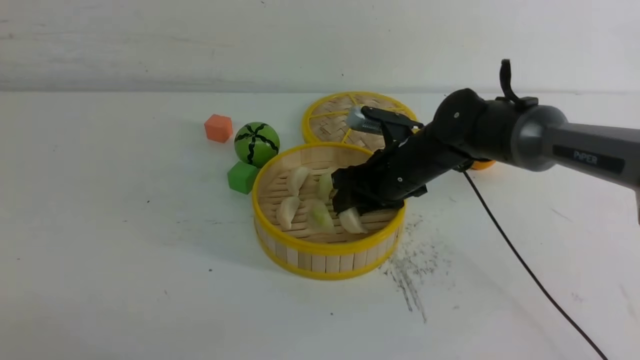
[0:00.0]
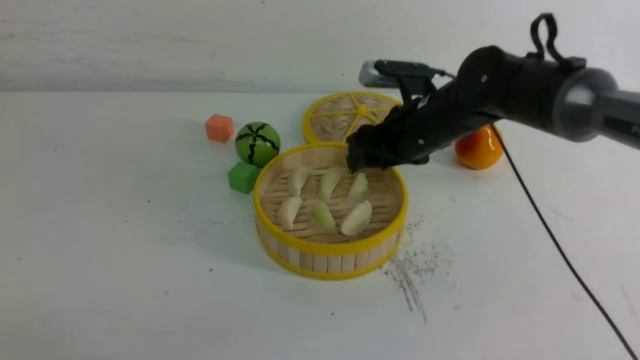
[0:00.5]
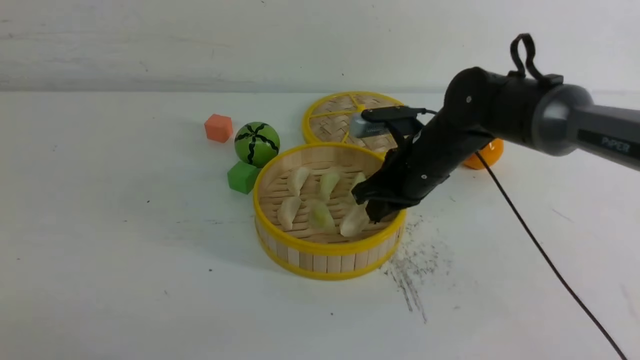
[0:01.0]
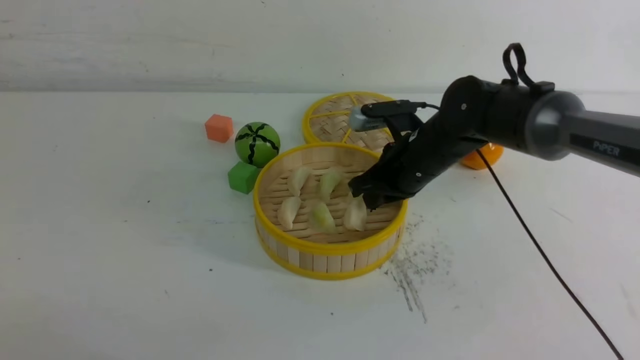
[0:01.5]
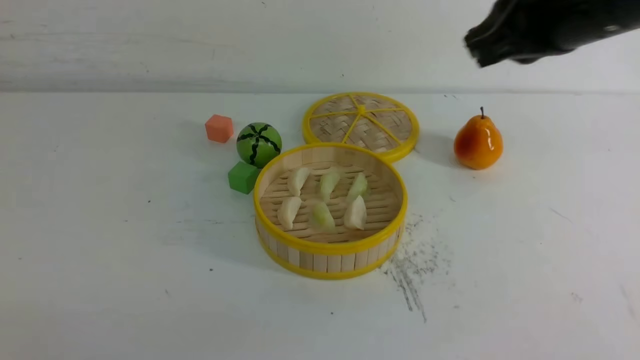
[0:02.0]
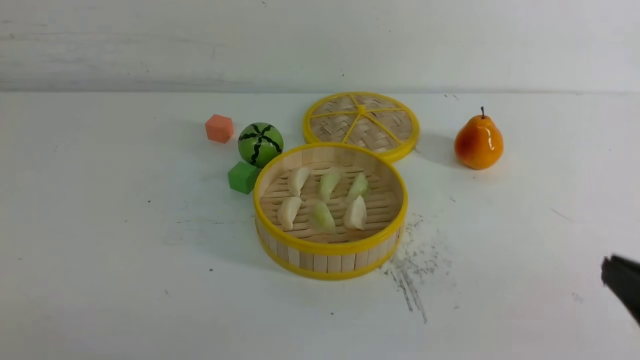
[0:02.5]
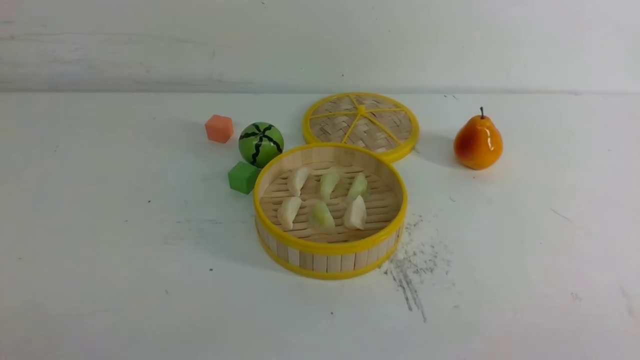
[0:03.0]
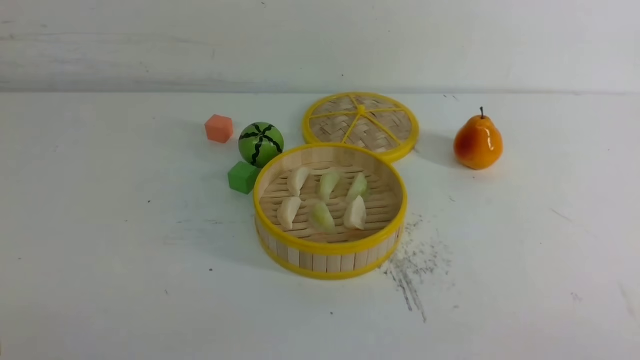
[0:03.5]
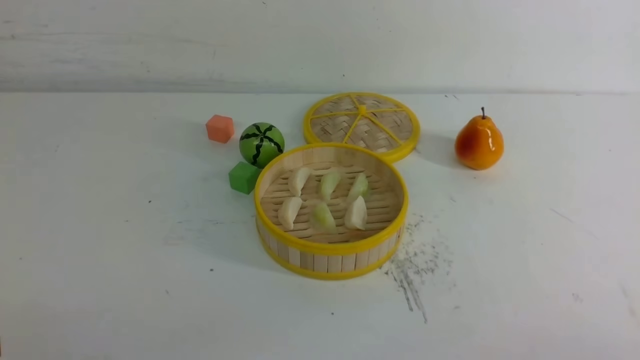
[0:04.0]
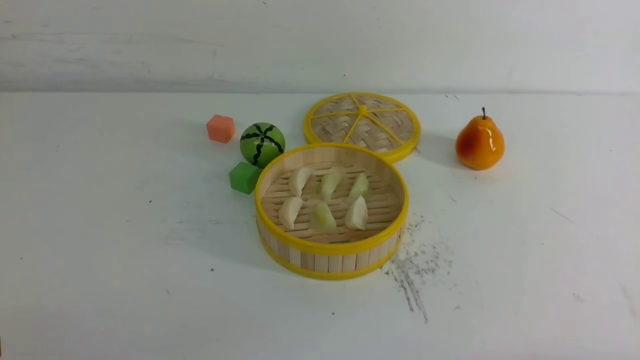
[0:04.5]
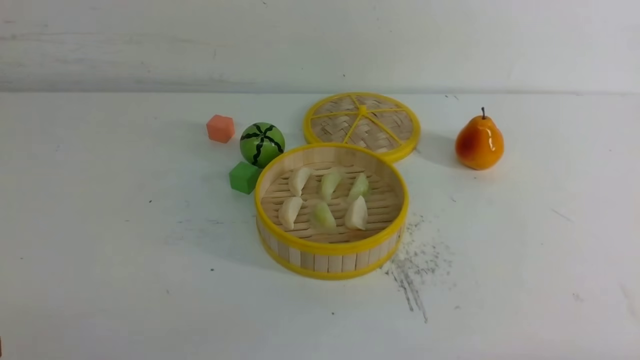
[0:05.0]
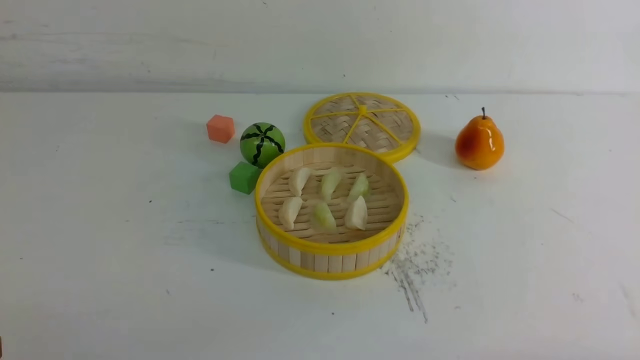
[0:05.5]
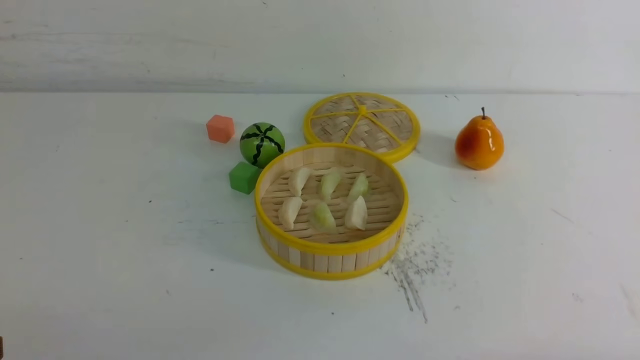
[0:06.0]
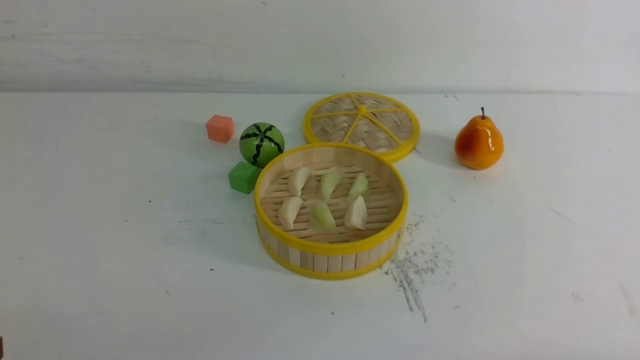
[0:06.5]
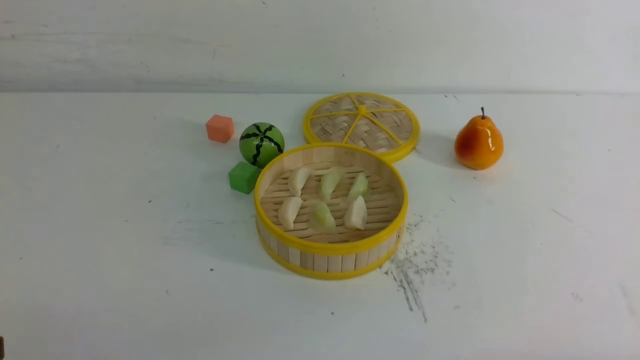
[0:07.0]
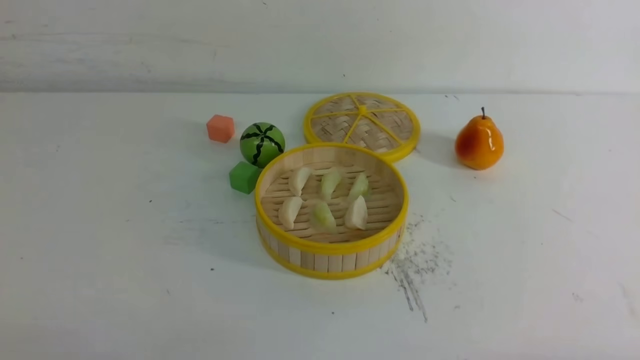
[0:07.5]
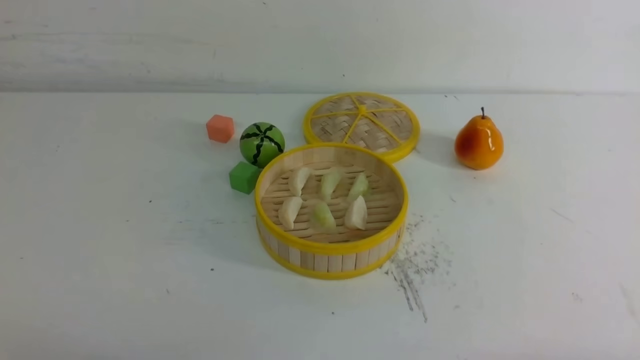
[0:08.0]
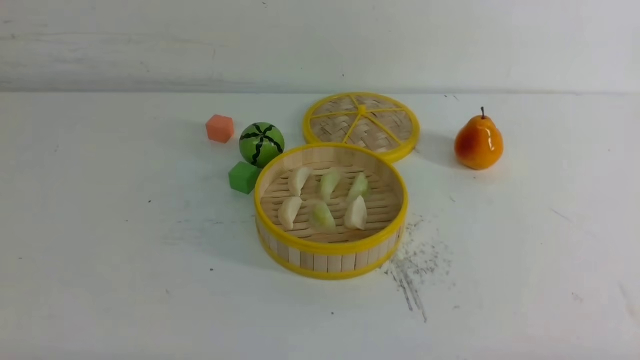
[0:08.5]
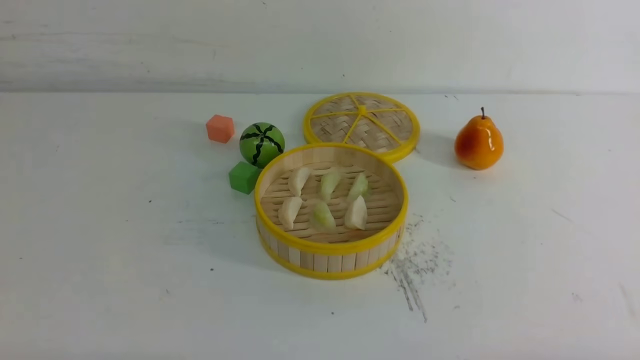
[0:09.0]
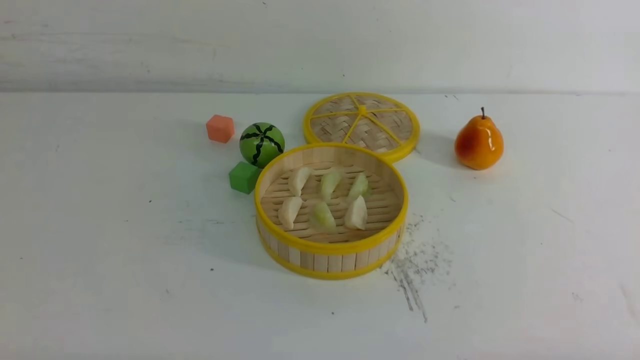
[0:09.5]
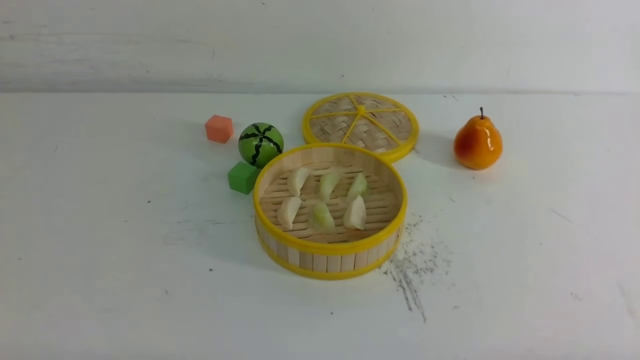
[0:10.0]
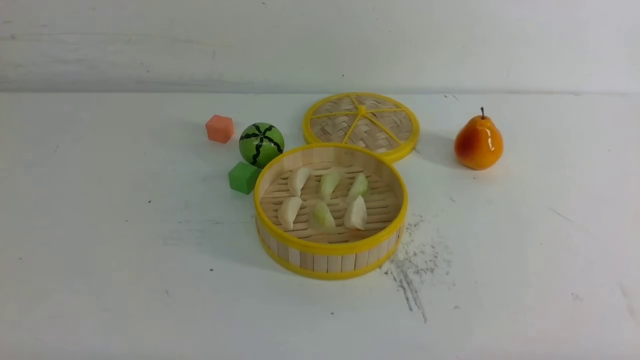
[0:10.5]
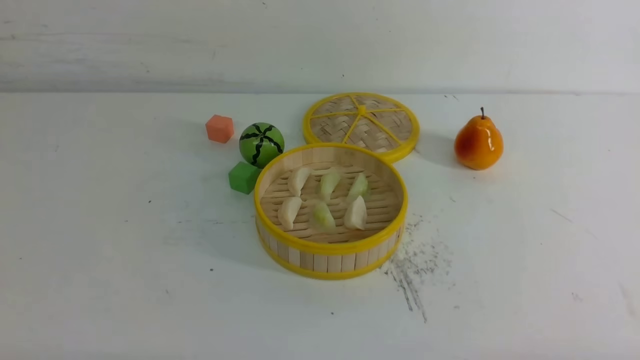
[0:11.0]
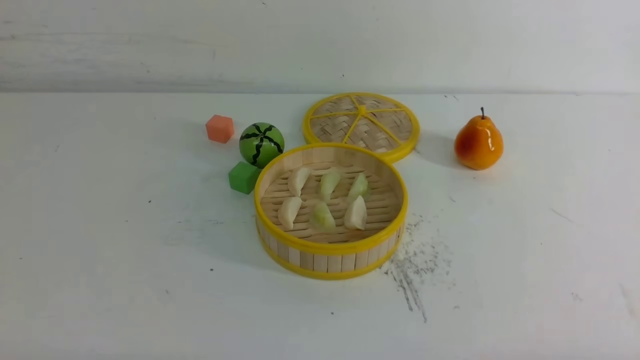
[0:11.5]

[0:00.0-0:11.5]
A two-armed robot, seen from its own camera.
Task of the whole recording: put the dumplings into the steamer on the white table.
0:00.0 to 0:02.0: The right gripper heads upward and backward, covering some 30 cm, and closes.
0:02.0 to 0:04.0: The right gripper is displaced backward, downward and to the right by some 30 cm.
0:09.5 to 0:11.5: The two grippers keep their place.

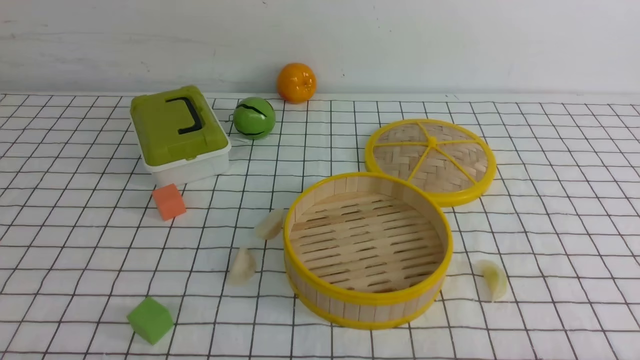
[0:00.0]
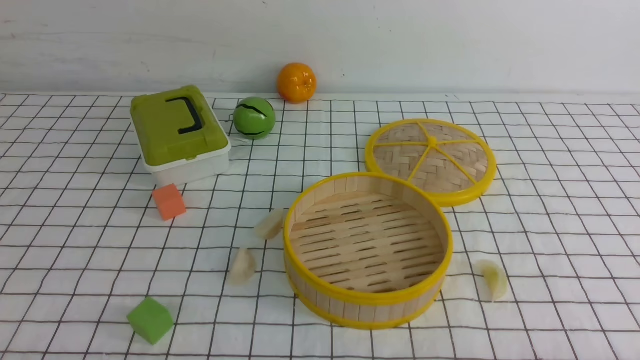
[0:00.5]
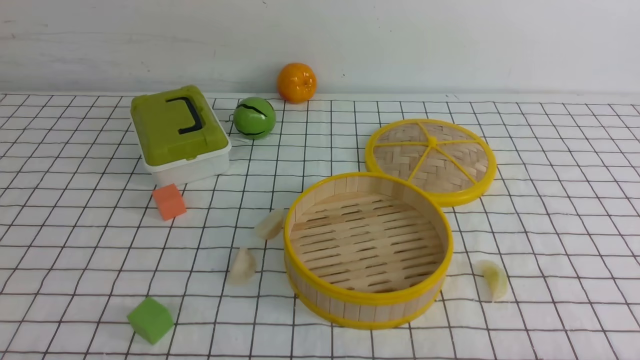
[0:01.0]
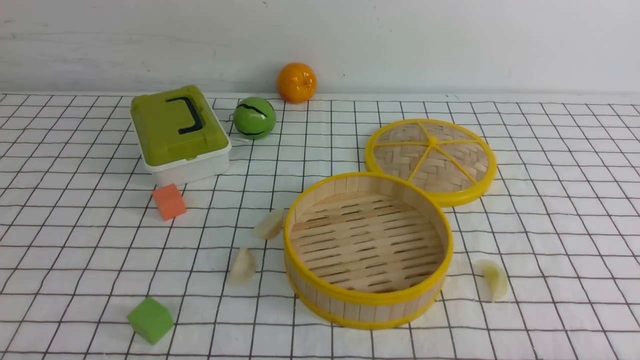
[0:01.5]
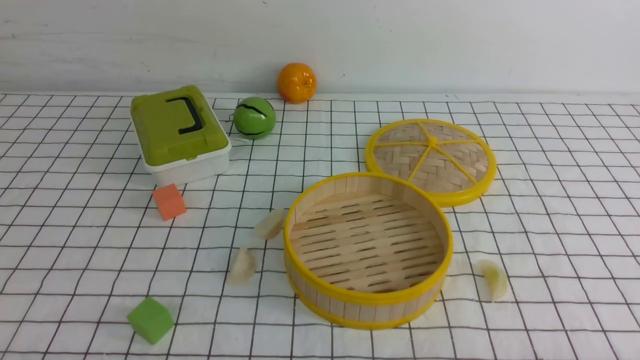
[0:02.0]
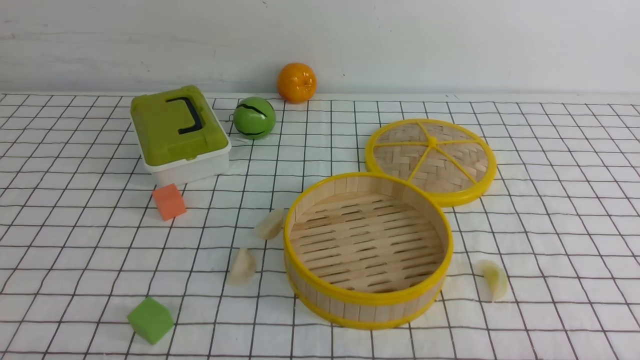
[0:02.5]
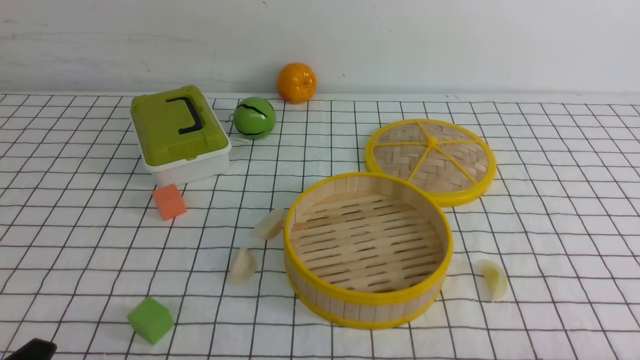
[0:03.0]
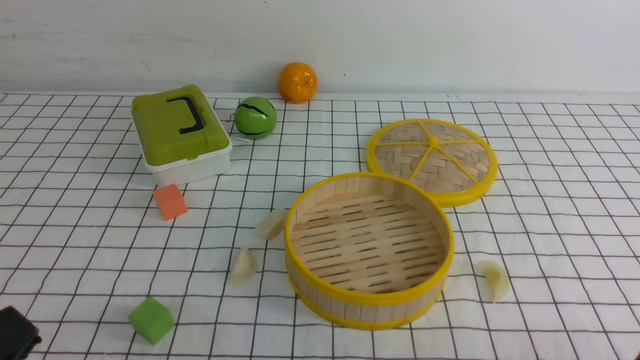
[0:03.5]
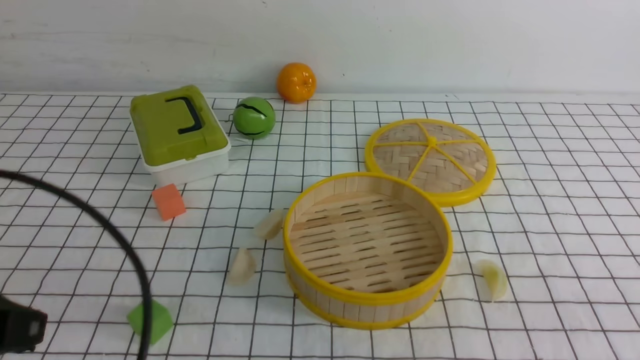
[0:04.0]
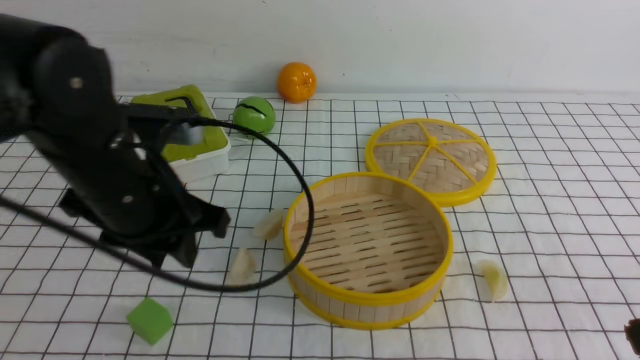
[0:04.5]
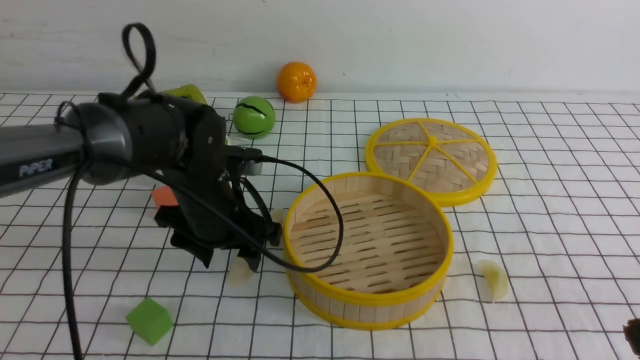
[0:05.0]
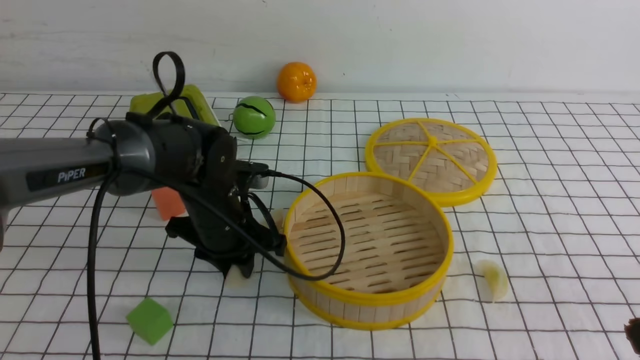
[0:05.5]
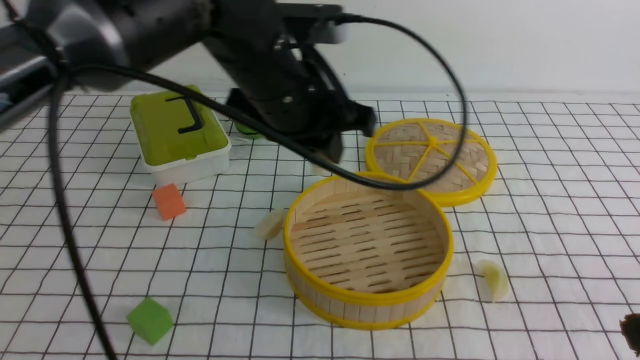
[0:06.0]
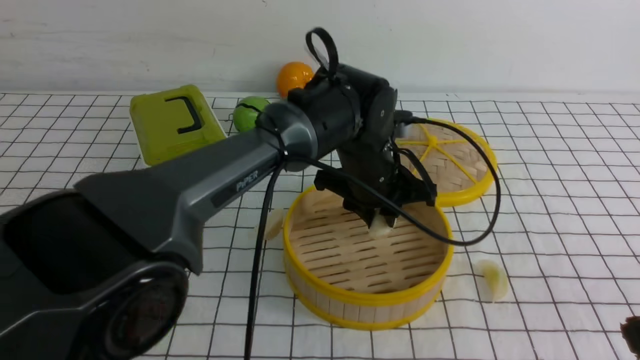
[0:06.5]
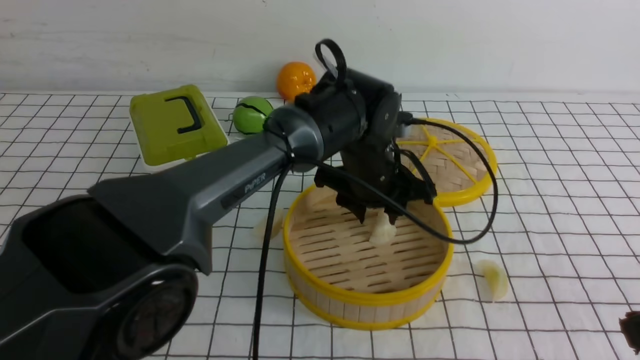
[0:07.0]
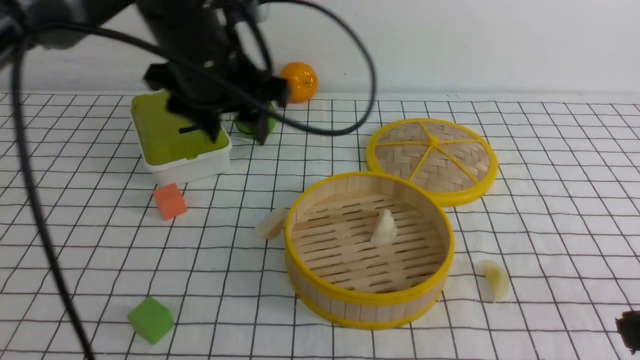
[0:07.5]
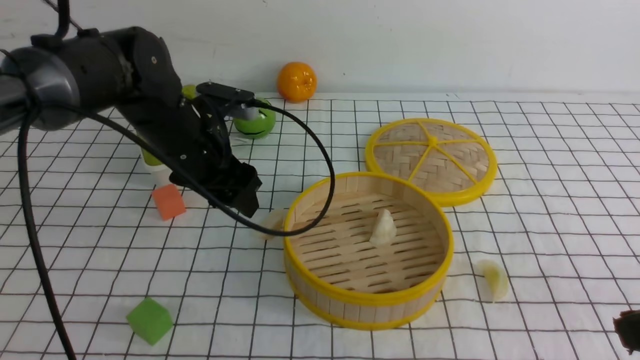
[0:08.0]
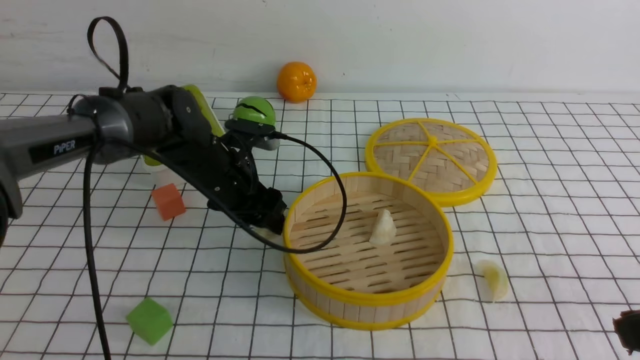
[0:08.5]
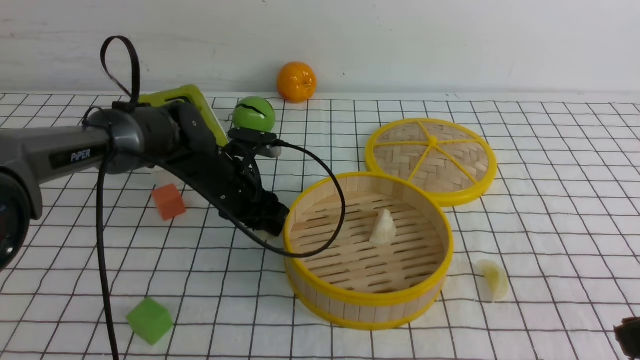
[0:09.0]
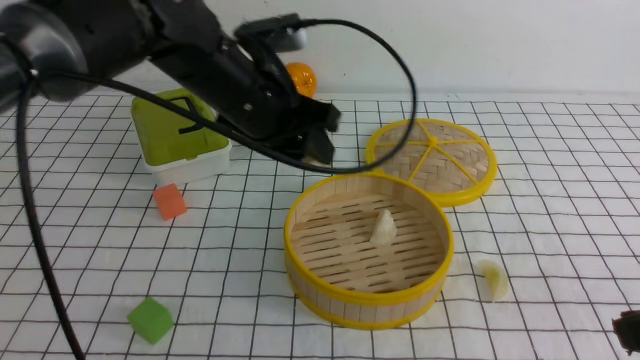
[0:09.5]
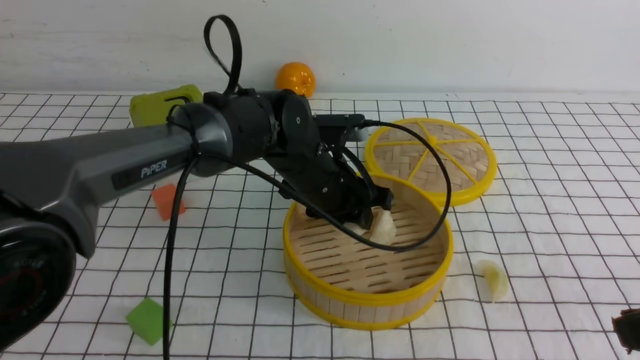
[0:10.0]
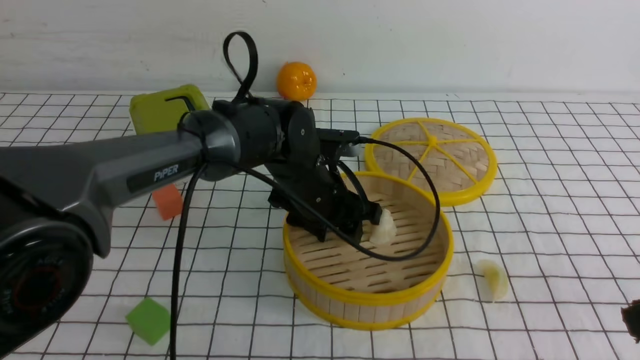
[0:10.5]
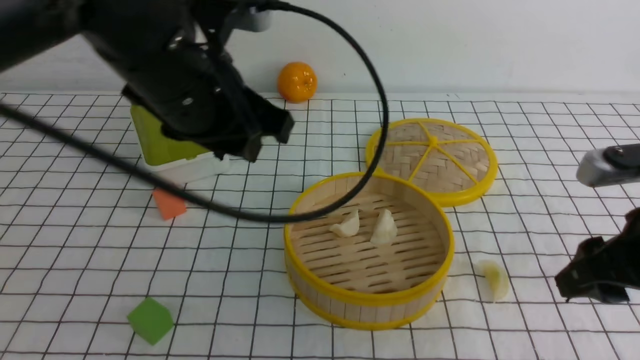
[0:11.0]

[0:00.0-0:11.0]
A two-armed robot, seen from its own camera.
Task of the whole recording: put the dumplings into the steamer on the table with the white tablecloth.
Step, 0:00.0 to 0:05.5: use the left arm to grab a dumpling.
Step, 0:06.5 to 0:07.0: use the left arm to put the dumpling into the steamer.
Step, 0:07.5 to 0:09.0: use the left arm to grab a dumpling.
Step, 0:09.5 to 0:10.5: use the left arm to put the dumpling into the steamer.
0:02.0 to 0:03.5: The left gripper heads upward, covering approximately 10 cm.
0:03.5 to 0:05.5: The right gripper is displaced upward and forward by roughly 15 cm, and closes its fingers. Meanwhile the left gripper heads forward, covering some 35 cm, and closes, then opens again.
0:05.5 to 0:07.5: The left gripper swings up and down, approximately 15 cm each way, with 2 reversals, and opens its fingers.
0:07.5 to 0:09.0: The left gripper heads downward, covering about 20 cm.
0:09.0 to 0:11.0: The left gripper goes up and down, some 20 cm each way, reversing 2 times. The right gripper shifts some 10 cm forward, and opens.
